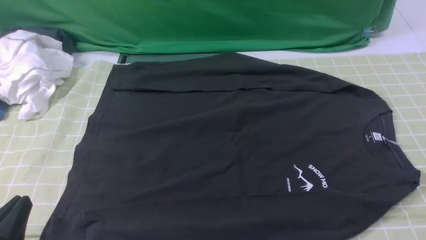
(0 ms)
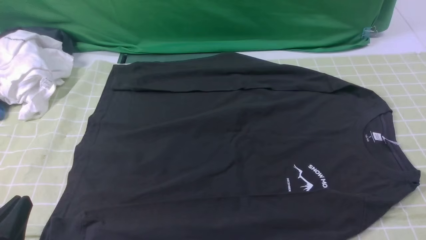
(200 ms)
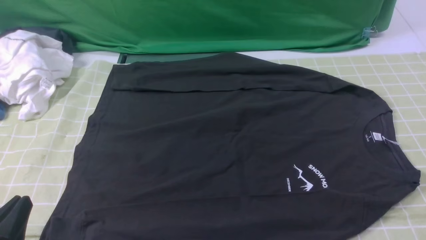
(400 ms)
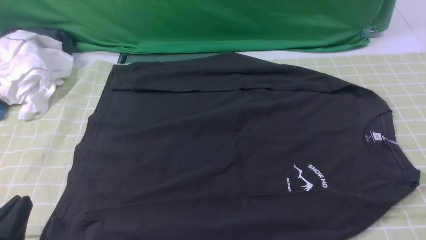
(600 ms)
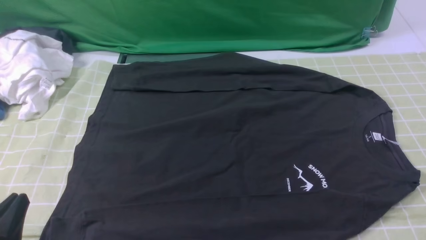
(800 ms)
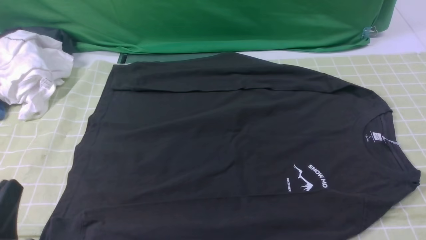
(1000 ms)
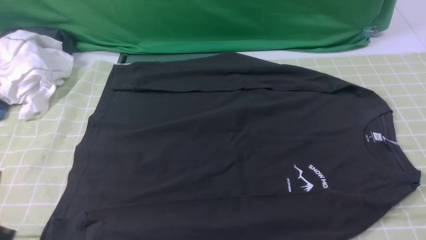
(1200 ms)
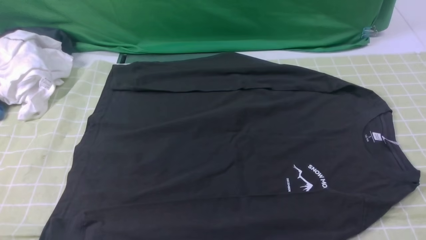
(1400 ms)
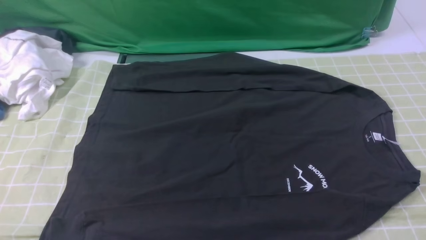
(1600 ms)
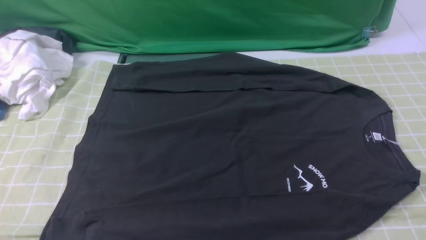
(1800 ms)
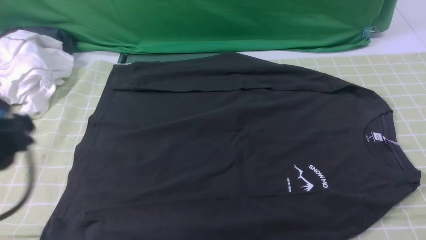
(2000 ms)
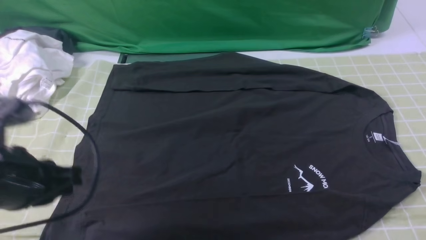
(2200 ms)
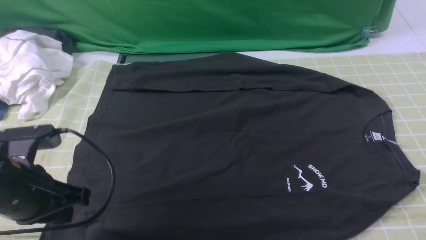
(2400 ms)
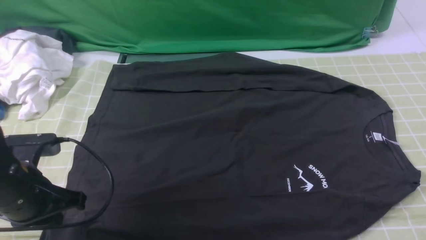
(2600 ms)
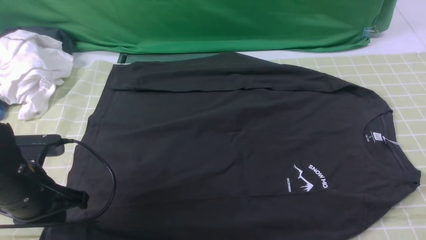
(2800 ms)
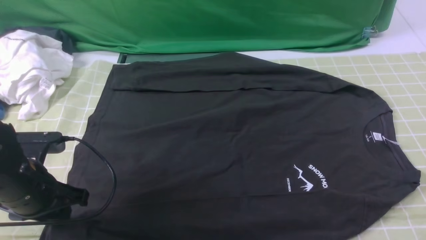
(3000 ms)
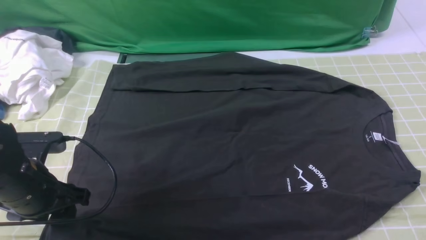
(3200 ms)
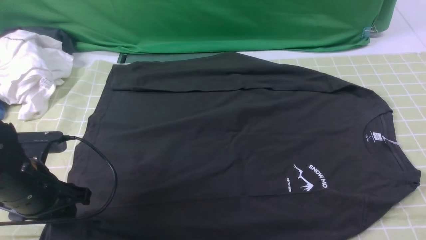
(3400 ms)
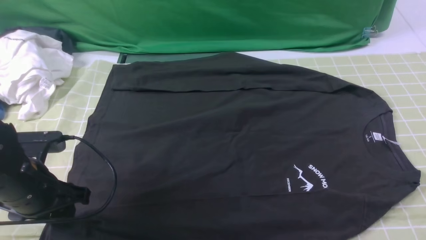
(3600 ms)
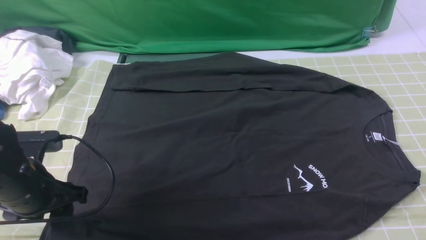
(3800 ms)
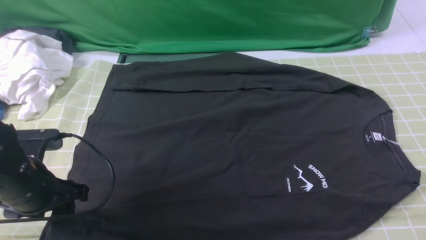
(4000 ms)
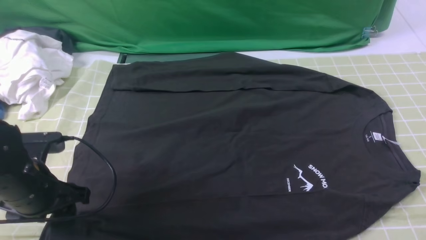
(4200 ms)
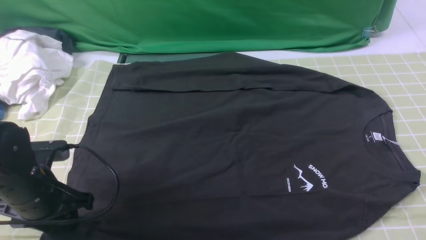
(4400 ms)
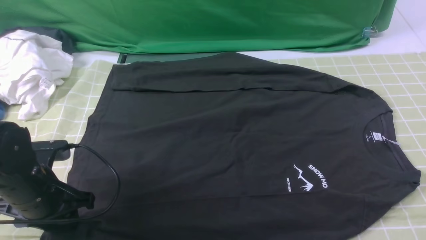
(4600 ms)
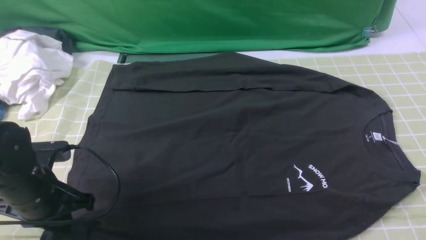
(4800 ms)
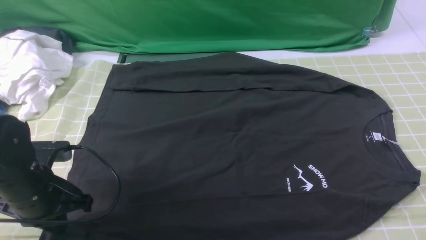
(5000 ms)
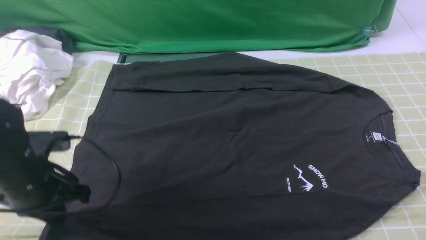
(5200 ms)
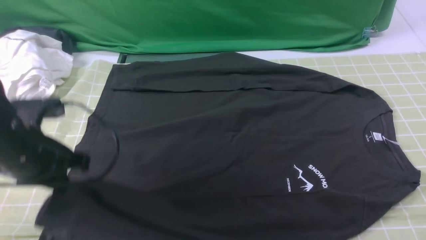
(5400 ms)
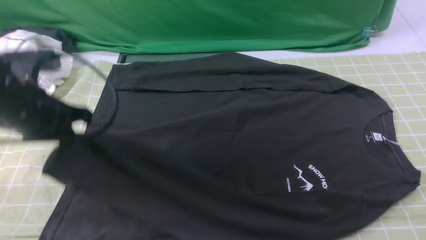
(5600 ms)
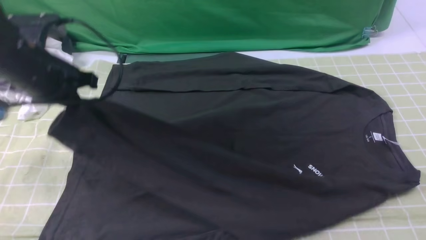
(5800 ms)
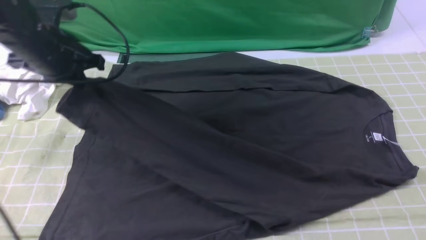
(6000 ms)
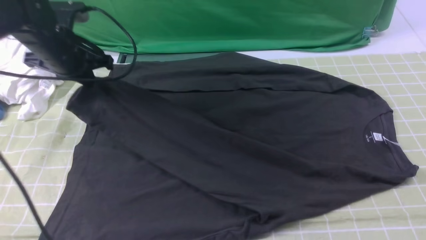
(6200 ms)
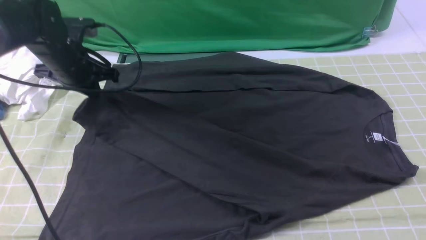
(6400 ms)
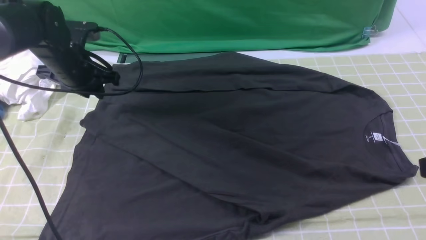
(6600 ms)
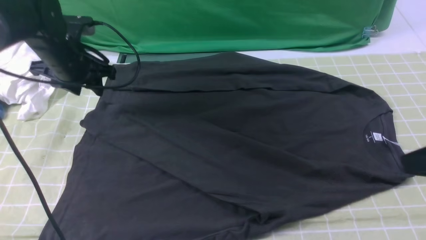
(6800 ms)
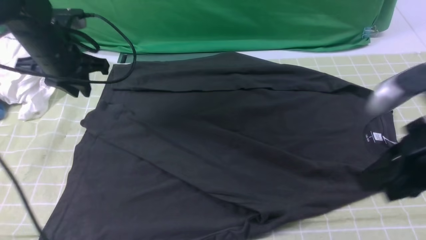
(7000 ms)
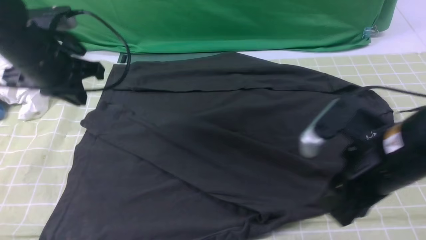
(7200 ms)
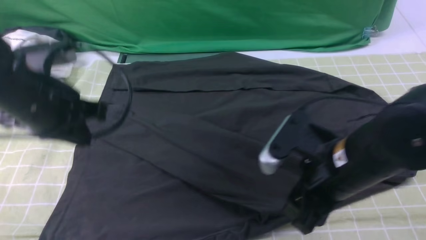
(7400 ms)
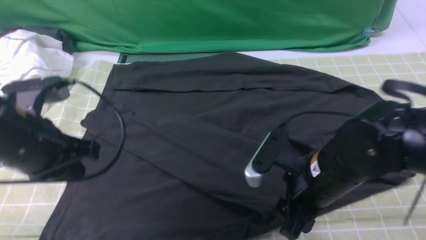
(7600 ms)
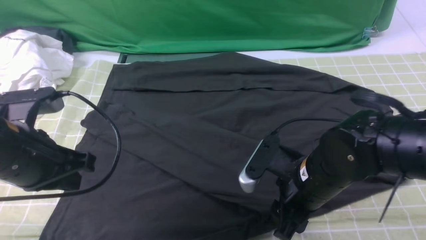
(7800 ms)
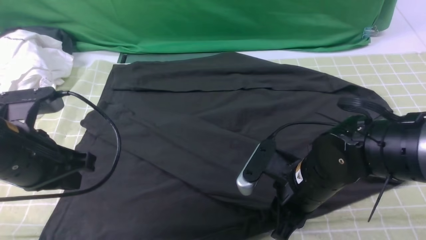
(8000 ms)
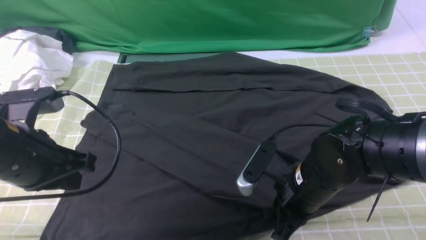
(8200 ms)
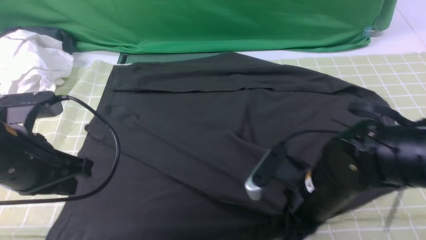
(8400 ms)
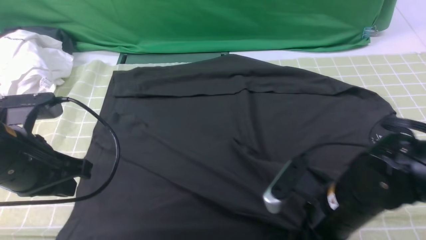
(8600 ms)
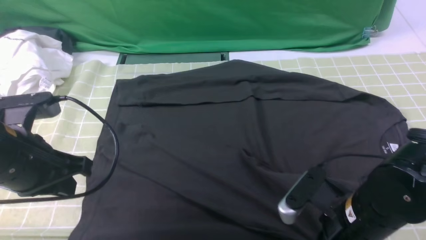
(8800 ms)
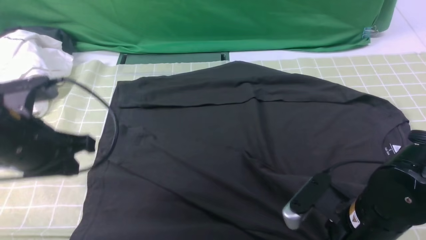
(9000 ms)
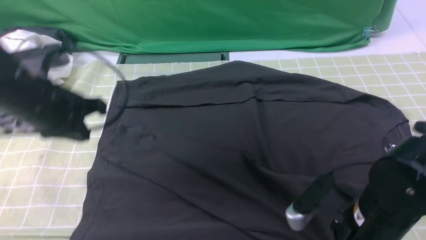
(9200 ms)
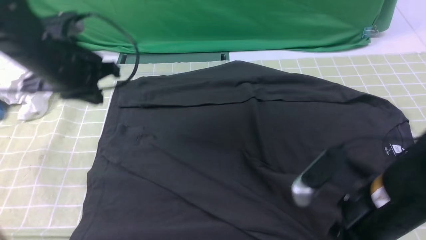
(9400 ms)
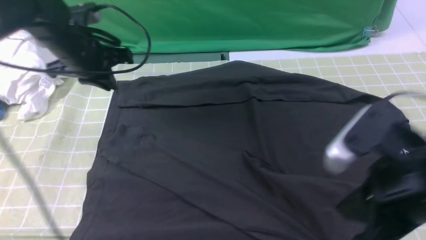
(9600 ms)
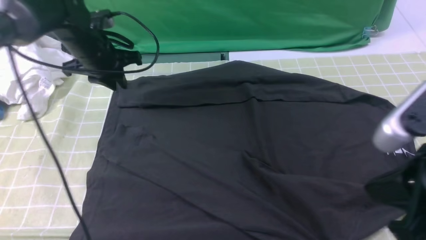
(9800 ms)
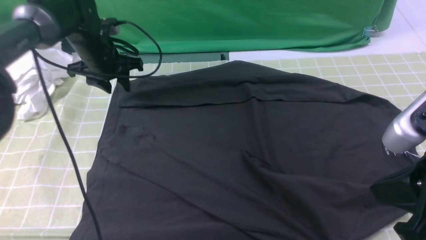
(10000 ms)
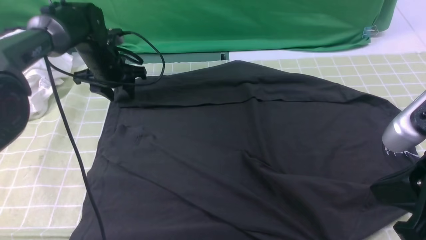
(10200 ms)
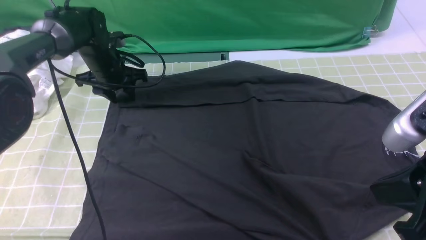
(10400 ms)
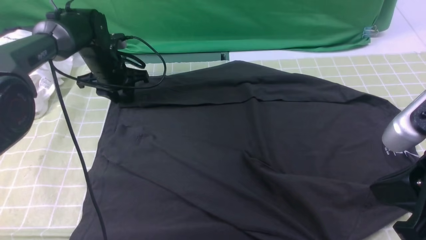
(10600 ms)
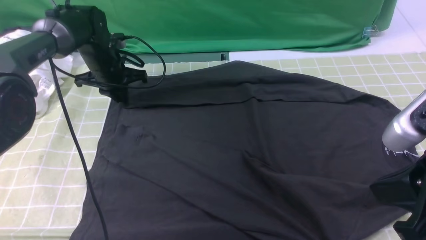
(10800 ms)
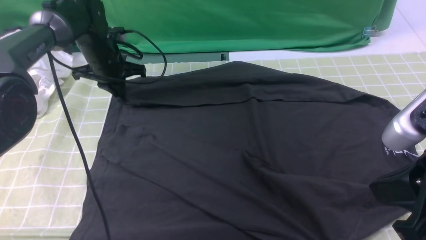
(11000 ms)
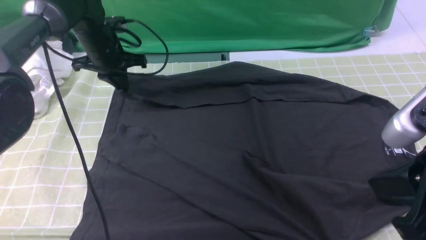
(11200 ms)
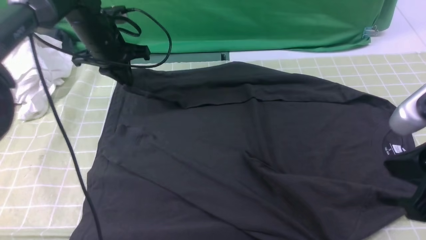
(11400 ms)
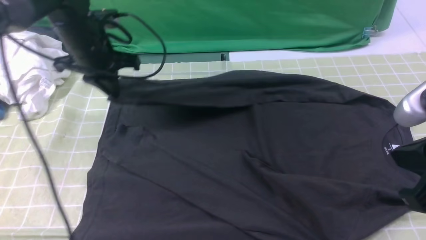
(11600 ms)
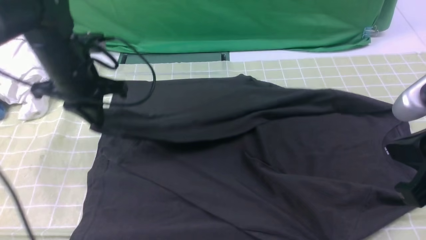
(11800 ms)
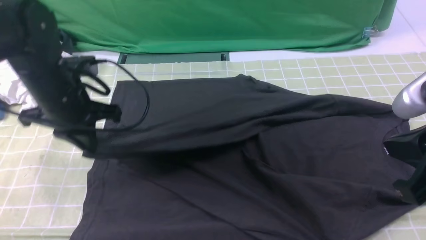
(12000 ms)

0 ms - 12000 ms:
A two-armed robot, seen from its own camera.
Step, 0 ms - 4800 ms: use the left arm to clamp the cuff closest to it.
Step, 5000 ms - 6600 ms: use the left arm to drag and place the cuff at the centered position on the left edge of the fabric.
Step, 6800 ms - 10800 ms: use the left arm to clamp the cuff farthest from it.
0 ms - 1600 ms: The left gripper is displaced upward by some 10 cm.
1600 ms - 3000 ms: The left gripper heads forward and downward, covering approximately 20 cm, and opens.
3000 ms - 4400 ms: The grippers move only a little.
4400 ms - 6000 ms: The left gripper travels forward and upward by some 20 cm, and closes.
6000 ms - 7600 ms: The left gripper moves backward, some 15 cm, and opens, then closes again. The right gripper is displaced to the left, downward and forward by about 25 cm, and opens.
7600 ms - 9000 ms: The right gripper is displaced backward by approximately 5 cm, and closes up.
9000 ms - 10400 ms: The left gripper is displaced forward and downward by approximately 25 cm, and opens. The right gripper is displaced upward by about 15 cm, and closes up.
10400 ms - 12000 ms: The left gripper shifts some 20 cm backward and upward, and closes.

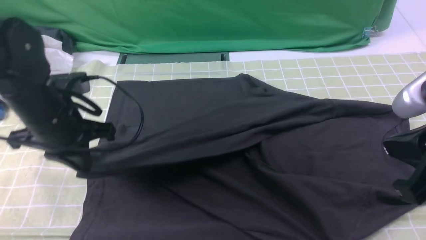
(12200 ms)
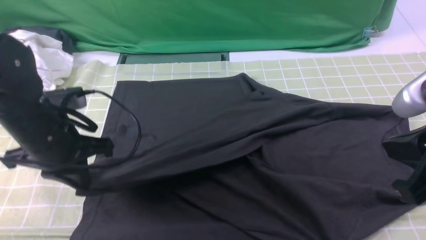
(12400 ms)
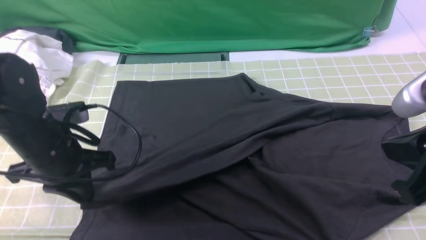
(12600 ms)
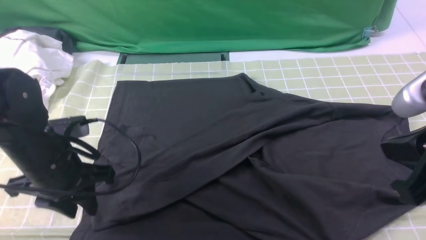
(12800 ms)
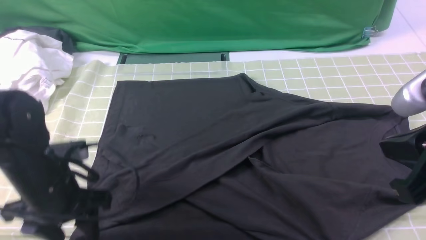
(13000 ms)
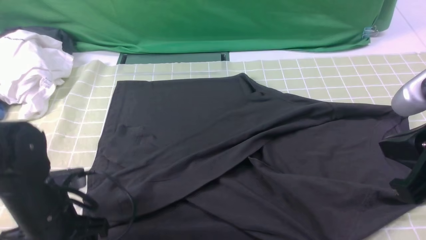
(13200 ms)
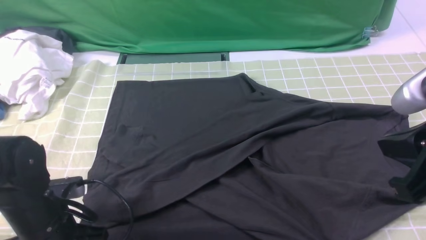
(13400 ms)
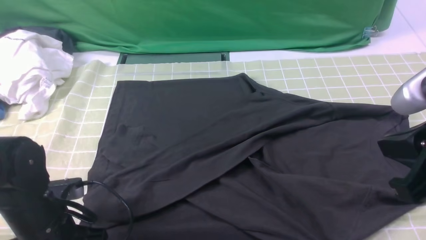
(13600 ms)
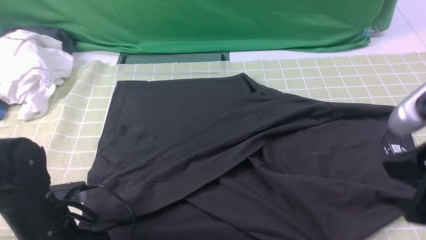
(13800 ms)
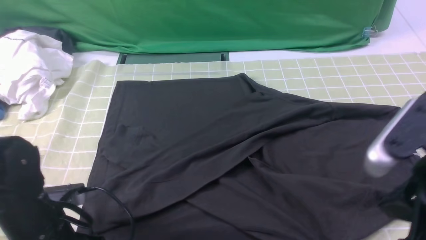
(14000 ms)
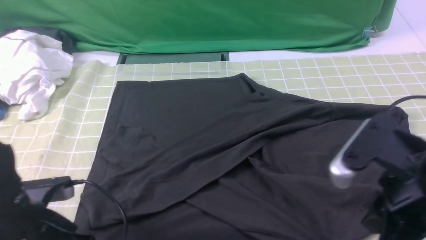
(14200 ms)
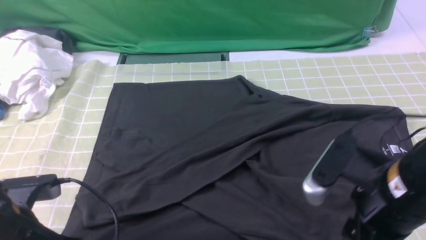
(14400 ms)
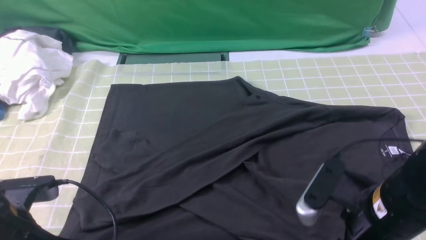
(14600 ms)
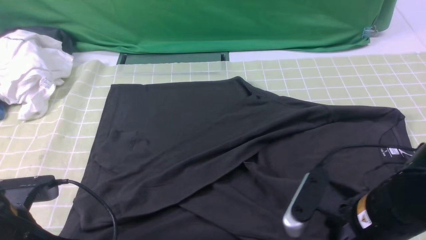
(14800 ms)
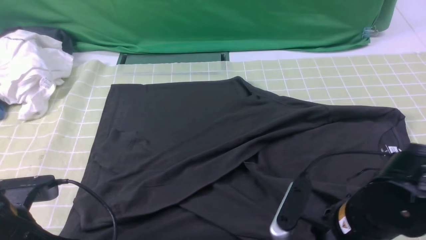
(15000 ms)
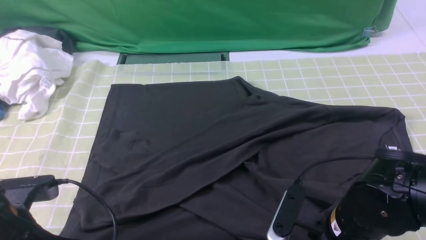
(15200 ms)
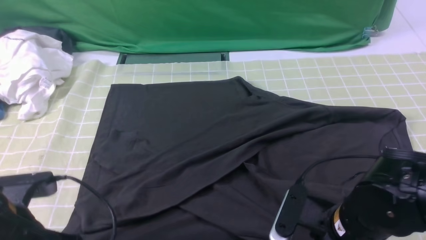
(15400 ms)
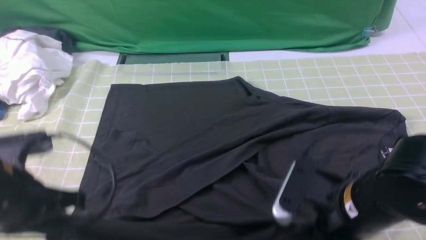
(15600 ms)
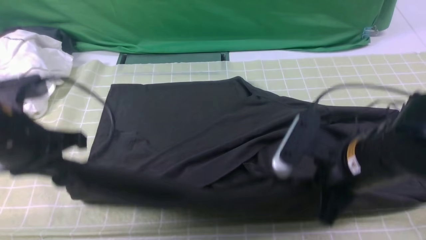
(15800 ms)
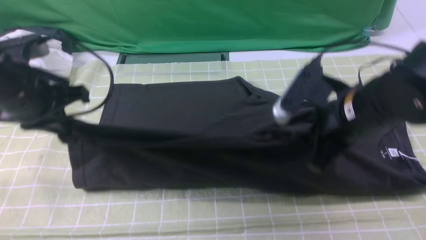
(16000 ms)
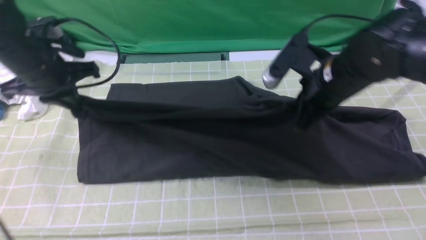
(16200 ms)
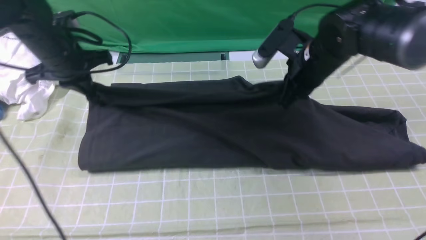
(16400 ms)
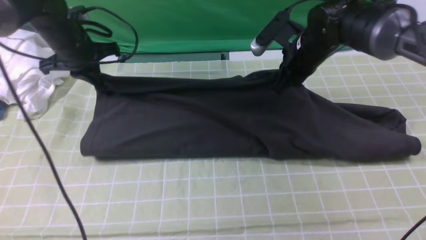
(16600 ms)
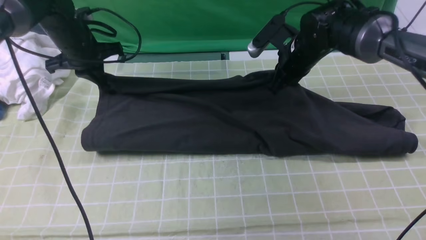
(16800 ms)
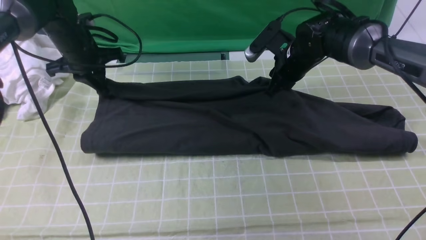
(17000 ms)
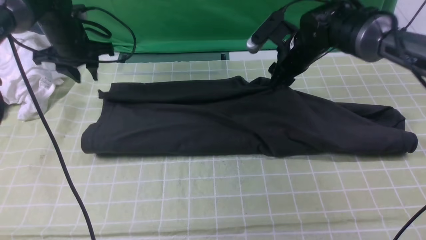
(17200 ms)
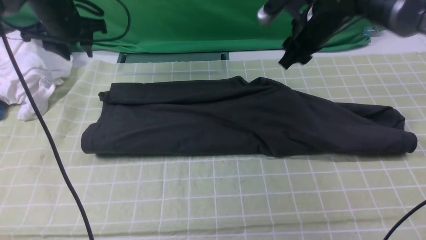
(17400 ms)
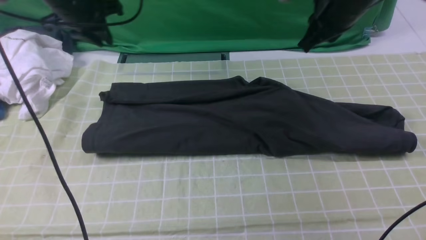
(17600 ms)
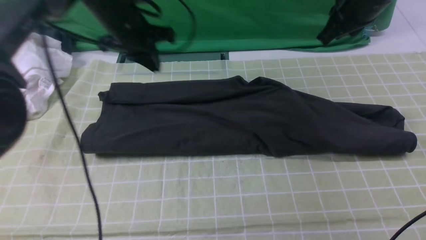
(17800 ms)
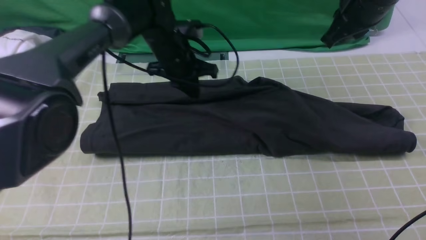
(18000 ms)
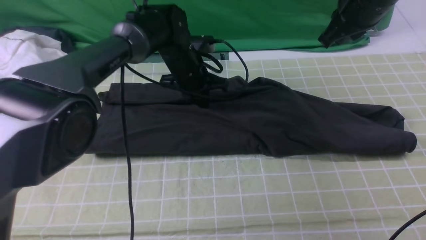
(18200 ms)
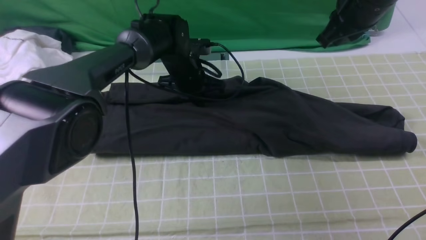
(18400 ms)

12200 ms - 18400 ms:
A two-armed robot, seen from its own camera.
Step, 13000 ms - 15200 ms: use both arms simultaneously to clamp the lower edge of the clothing fabric.
12200 ms - 13800 ms: The left gripper travels backward and downward by roughly 15 cm, and opens, then closes once more.
13800 ms - 15400 ms: The left gripper shifts about 5 cm upward; the right gripper heads downward and to the left, covering approximately 15 cm, and opens, then closes once more.
15400 ms - 16800 ms: The grippers both shift forward by roughly 30 cm.
16800 ms - 18400 ms: The right gripper is displaced upward and backward by some 15 cm, and opens, then closes again. Meanwhile the left gripper travels to the right by about 20 cm, and opens, then closes once more.
